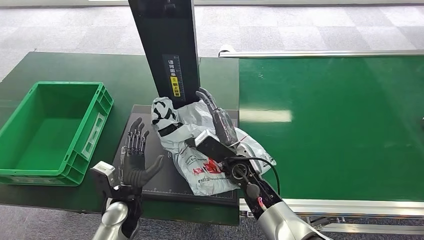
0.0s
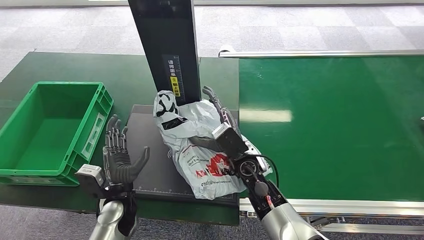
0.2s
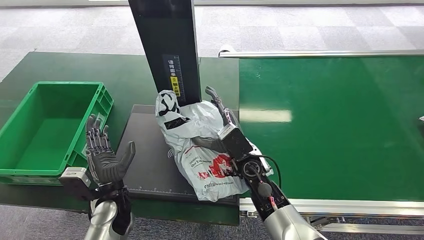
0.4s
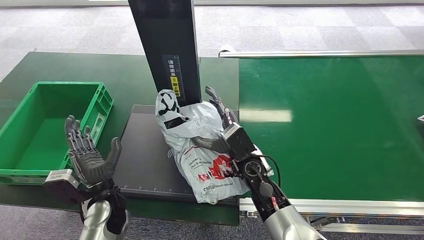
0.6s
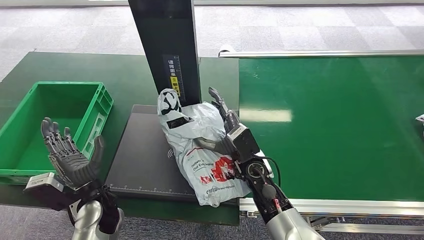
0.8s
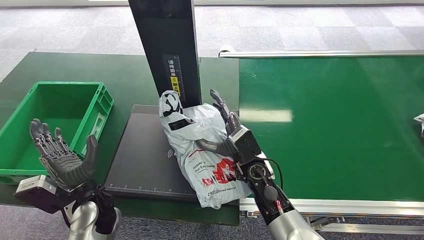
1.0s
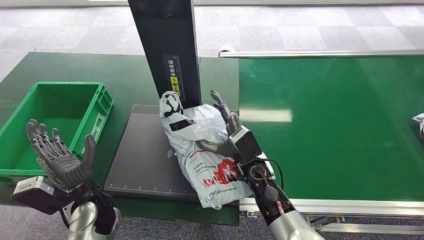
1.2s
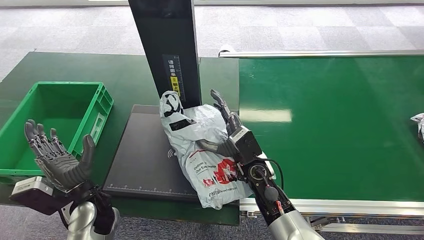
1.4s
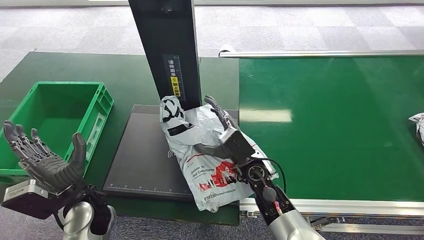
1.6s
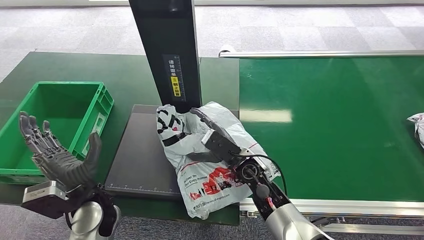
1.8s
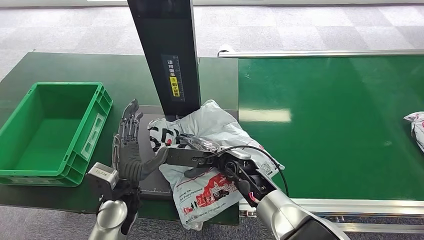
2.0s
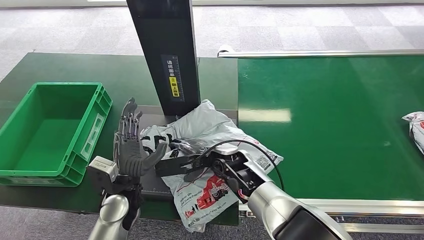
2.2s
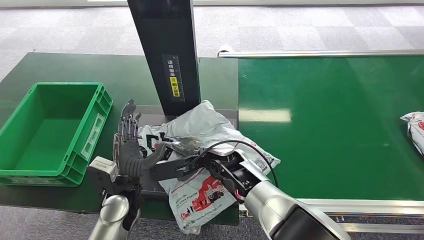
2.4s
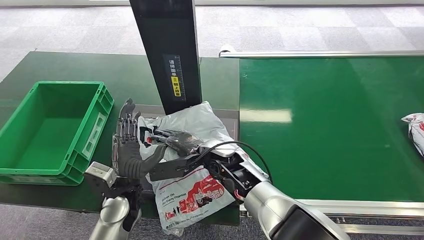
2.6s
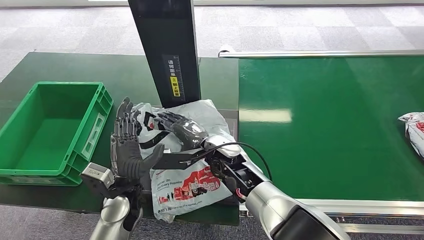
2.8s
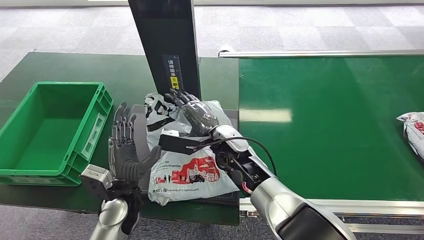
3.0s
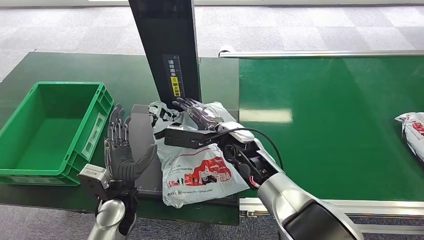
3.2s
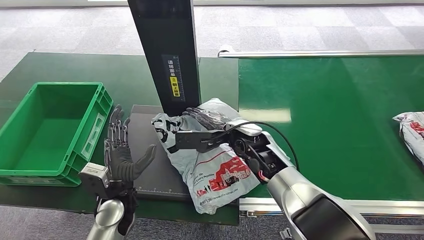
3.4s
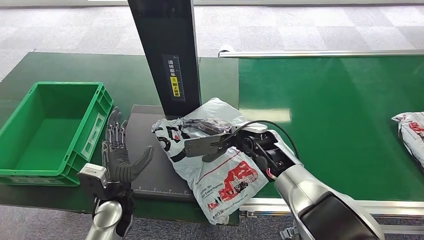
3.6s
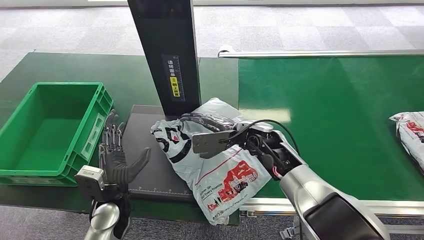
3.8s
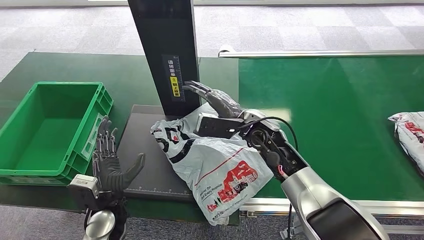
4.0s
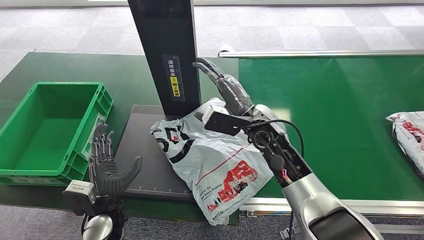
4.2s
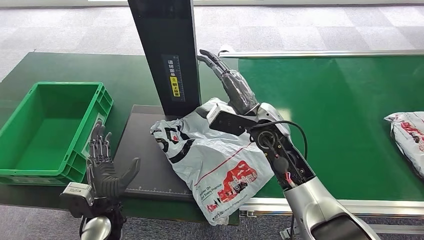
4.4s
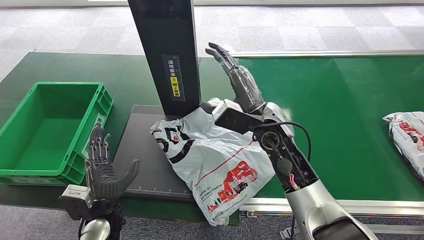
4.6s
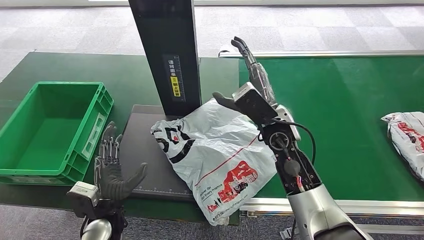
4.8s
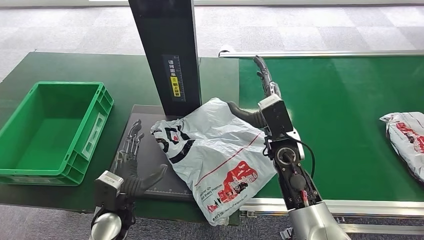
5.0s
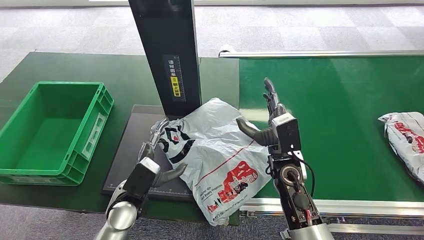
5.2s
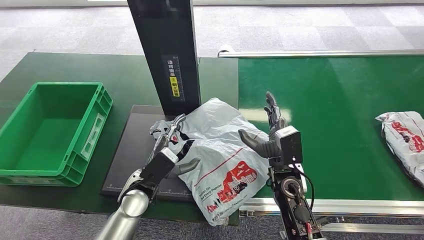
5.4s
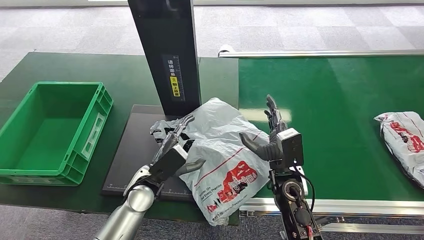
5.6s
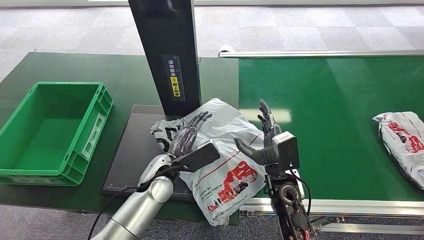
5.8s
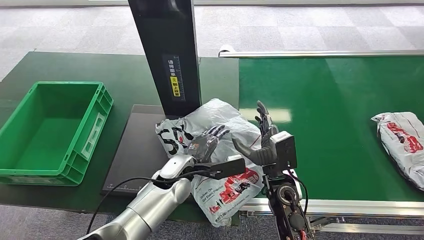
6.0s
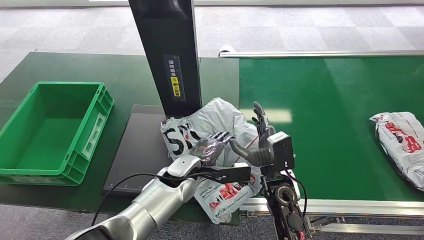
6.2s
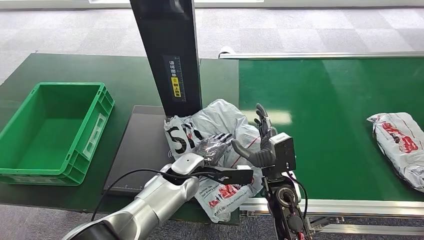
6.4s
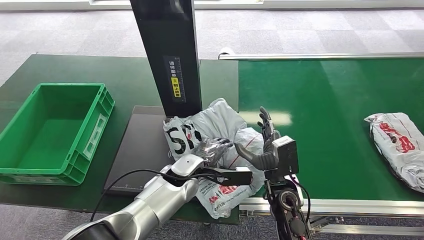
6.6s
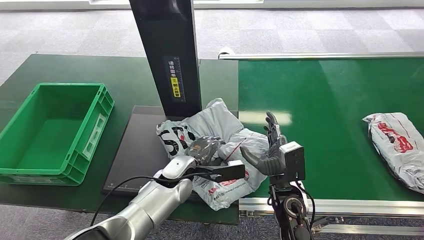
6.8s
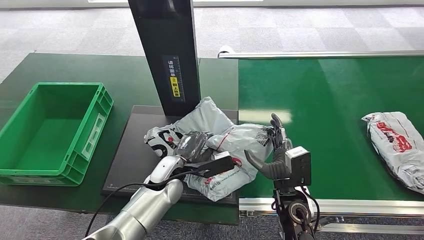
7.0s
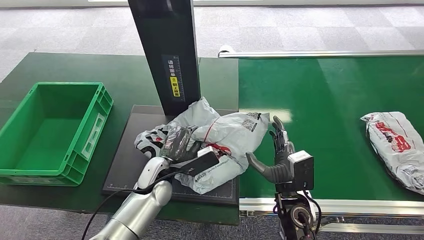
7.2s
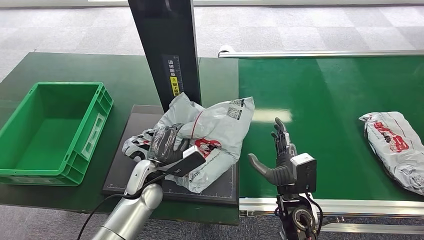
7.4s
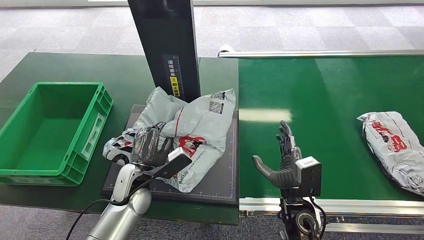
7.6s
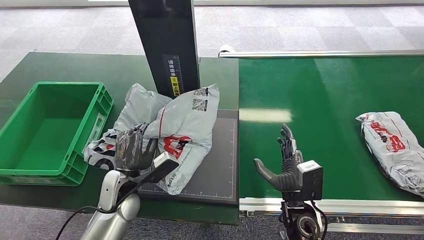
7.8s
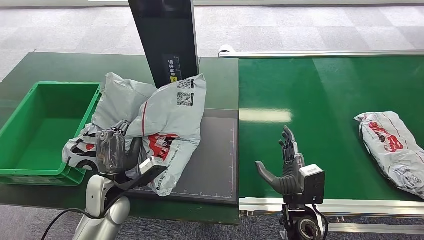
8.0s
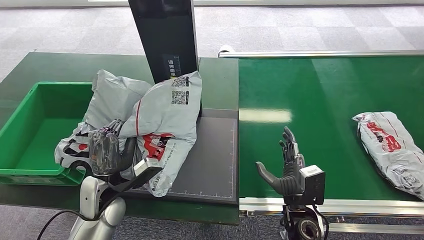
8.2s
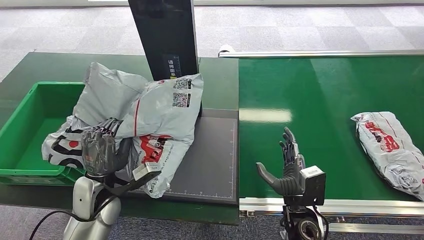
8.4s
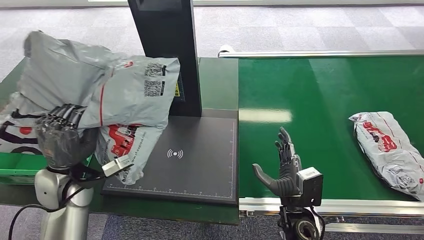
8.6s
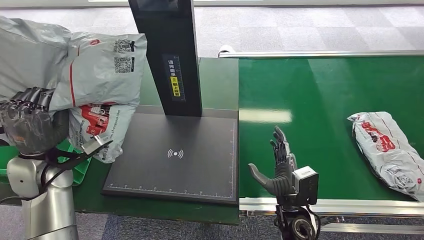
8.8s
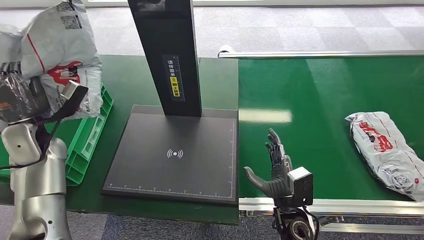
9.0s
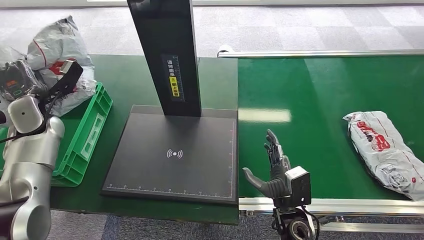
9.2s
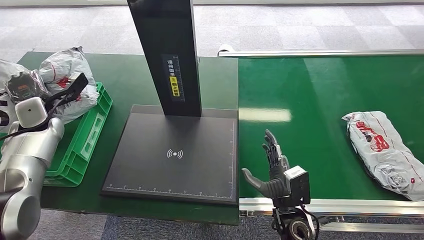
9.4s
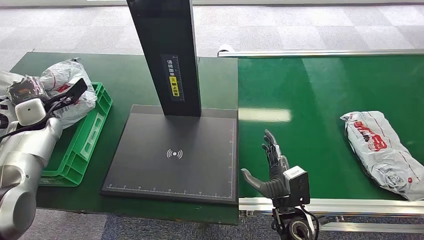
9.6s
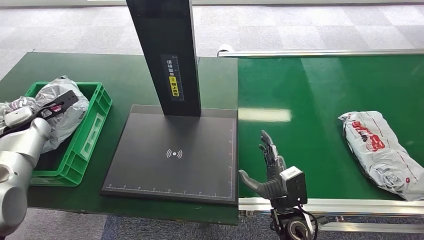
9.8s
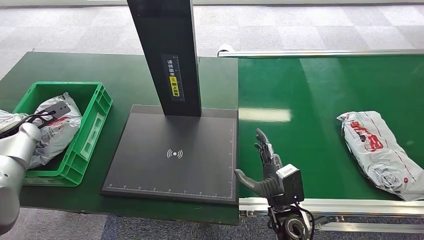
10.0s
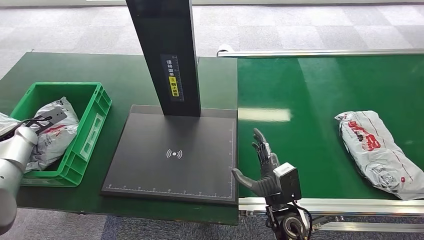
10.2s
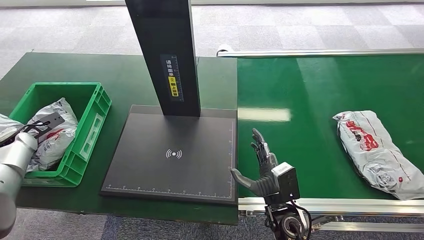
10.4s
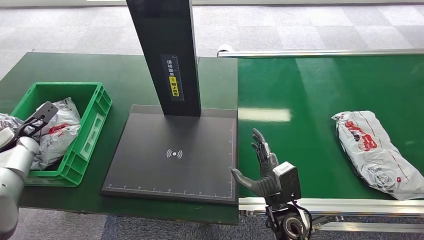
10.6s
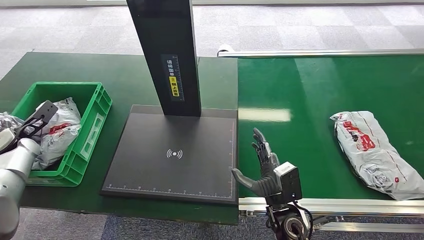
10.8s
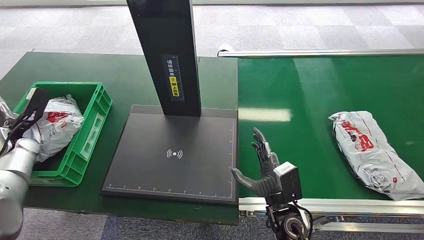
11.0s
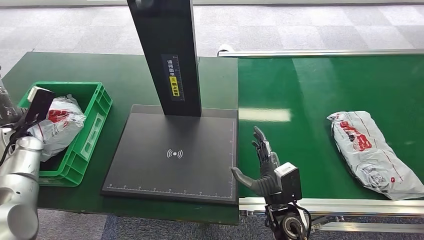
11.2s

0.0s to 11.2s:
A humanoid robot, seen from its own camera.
Step, 1.0s to 8.0s: Pick up the package from the inbound machine.
Step, 8.4s to 11.2s: Place the package into the parcel locker.
0.0s to 1.6s: The left hand shifts approximately 10 cm upward and to the left.
1.6s to 3.2s: The left hand is displaced to the right by roughly 5 cm, while the right hand heads upward and forward, covering approximately 10 cm.
9.6s to 11.2s: The left hand moves backward, about 5 cm.

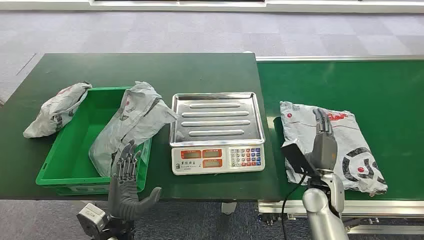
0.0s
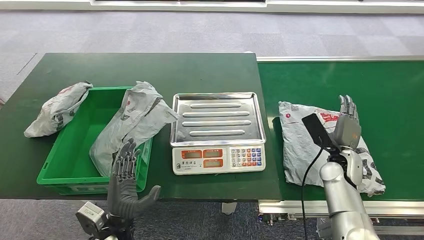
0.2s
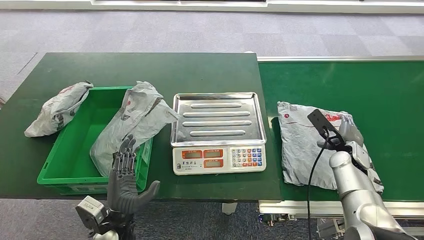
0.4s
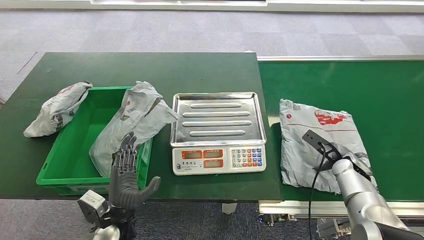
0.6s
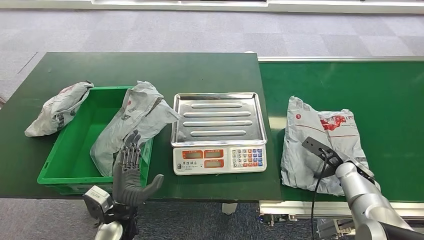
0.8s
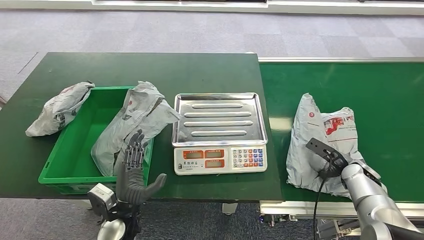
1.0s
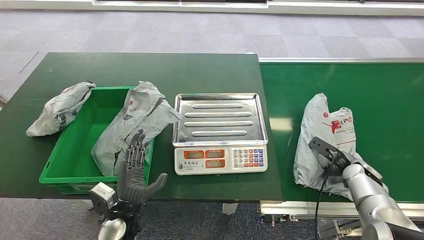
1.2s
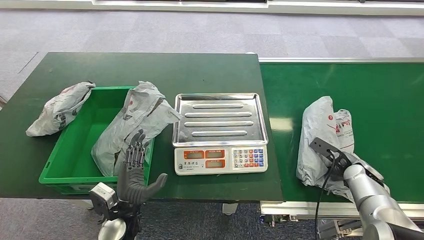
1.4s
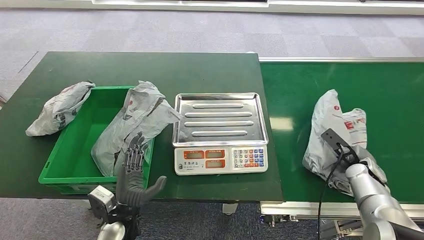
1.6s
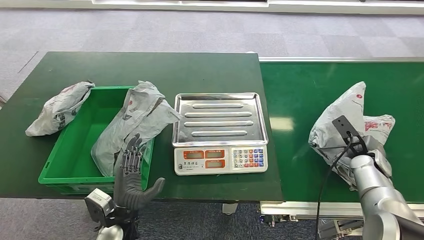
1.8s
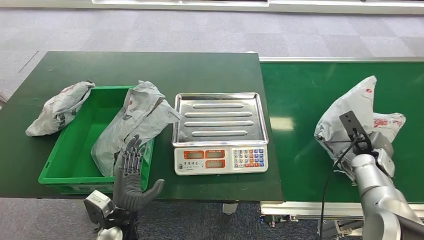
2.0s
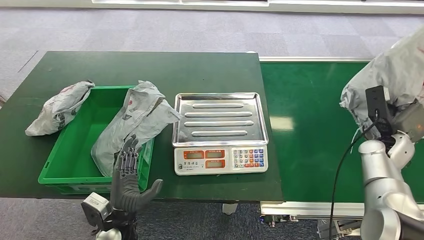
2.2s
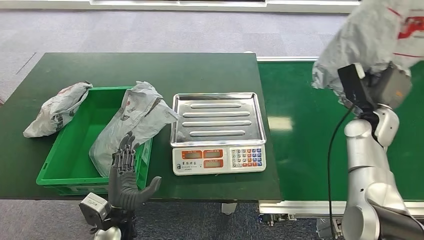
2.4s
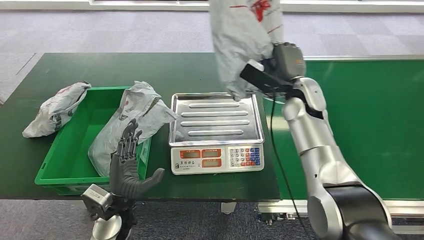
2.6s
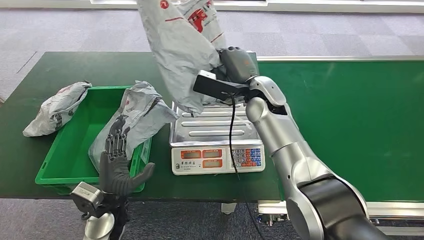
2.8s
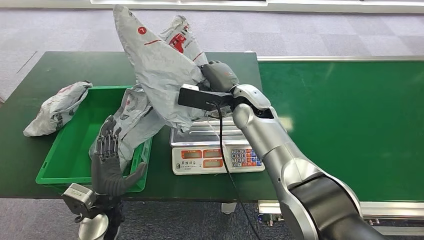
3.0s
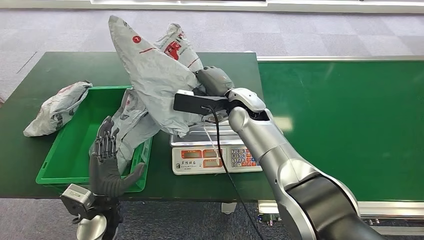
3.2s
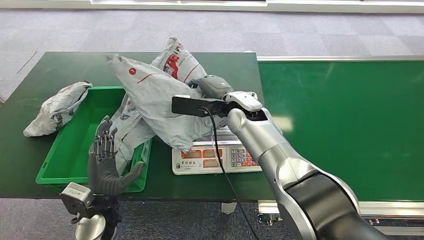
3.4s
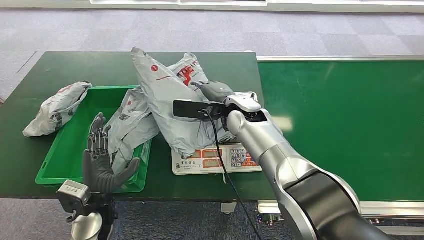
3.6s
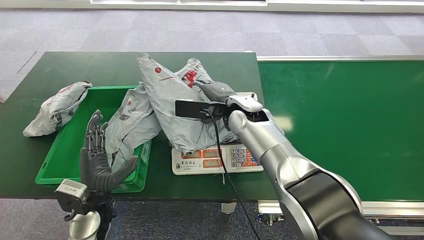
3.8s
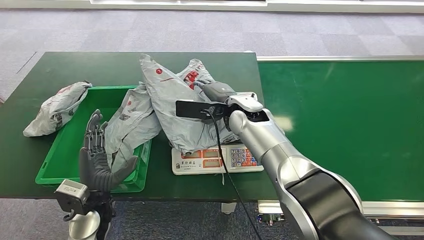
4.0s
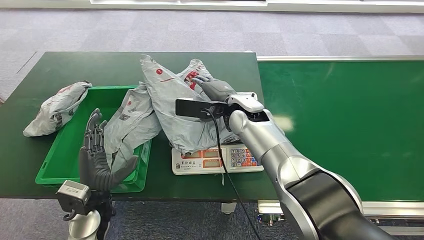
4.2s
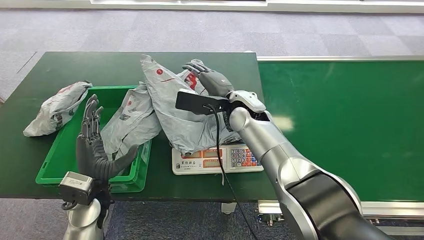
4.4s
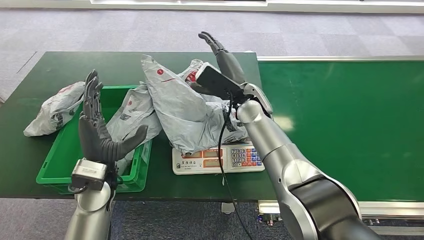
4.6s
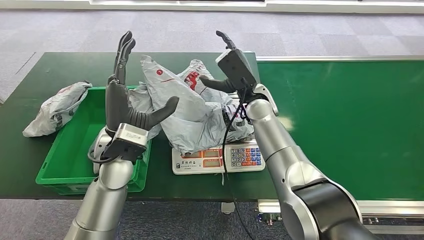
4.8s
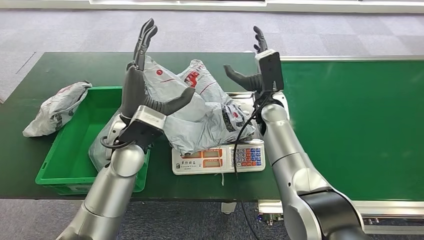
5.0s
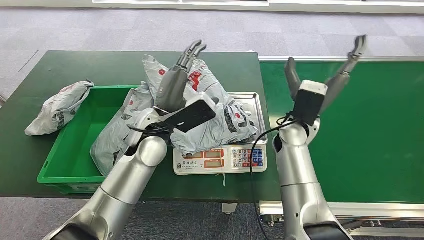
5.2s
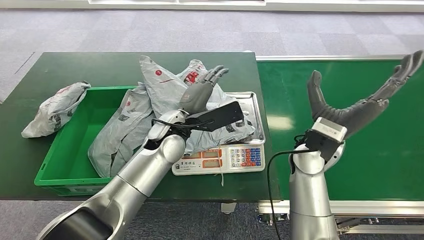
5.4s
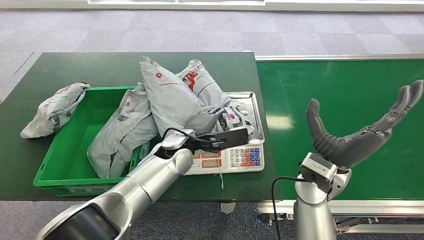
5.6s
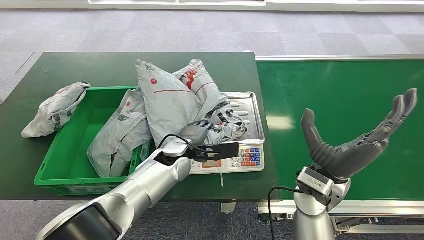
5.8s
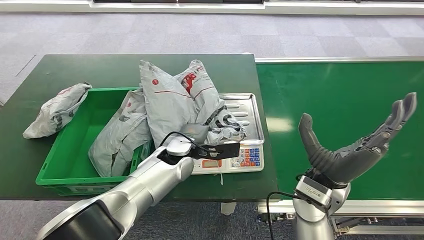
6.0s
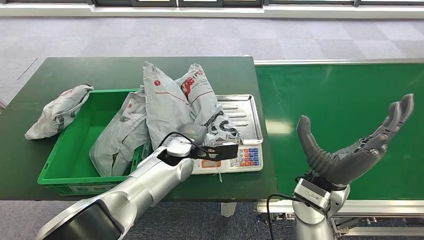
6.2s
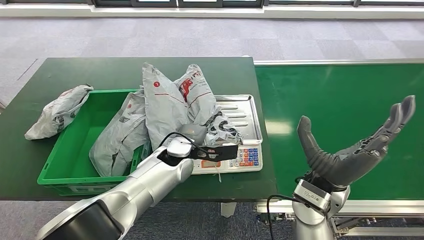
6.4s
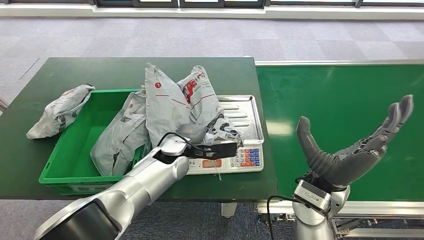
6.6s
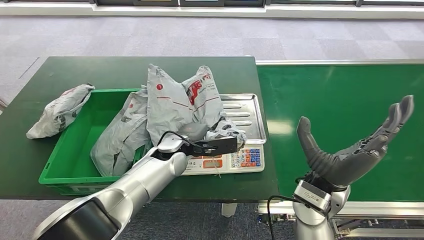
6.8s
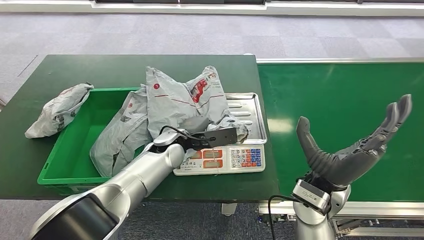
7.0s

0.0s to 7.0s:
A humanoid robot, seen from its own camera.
Step, 0.0s to 2.0s: Pick up the package from the conveyor belt.
Step, 2.4s to 4.0s: Place the package onto the inbound machine.
